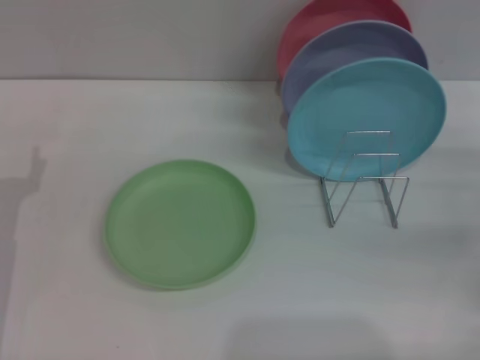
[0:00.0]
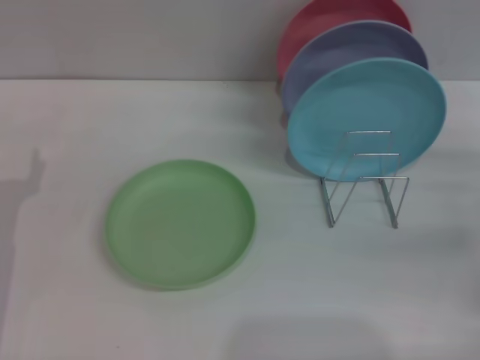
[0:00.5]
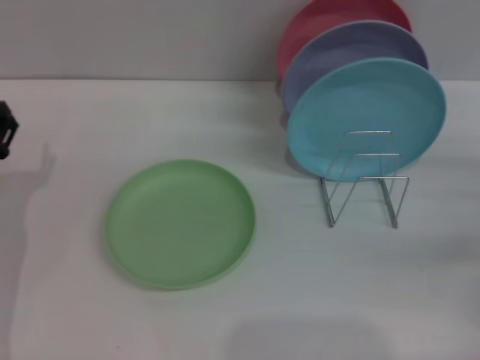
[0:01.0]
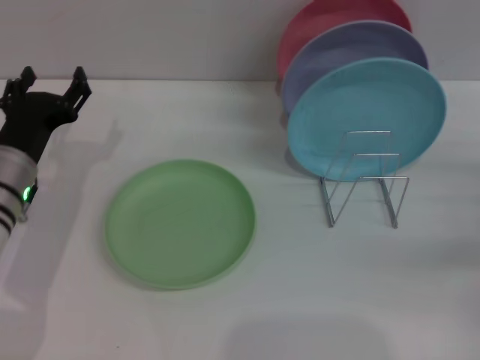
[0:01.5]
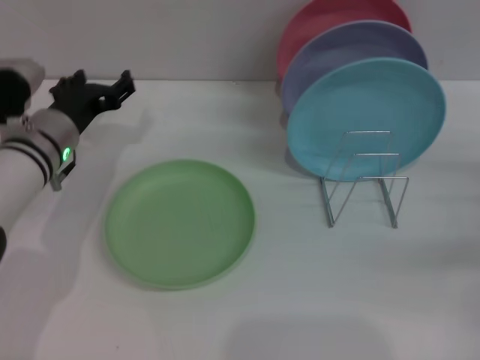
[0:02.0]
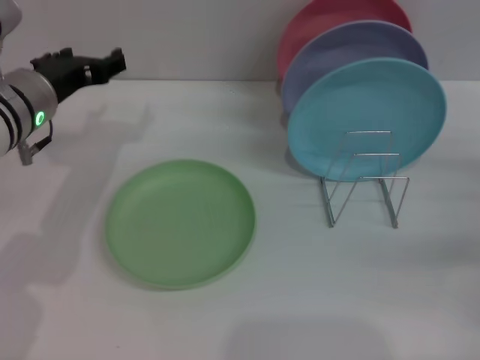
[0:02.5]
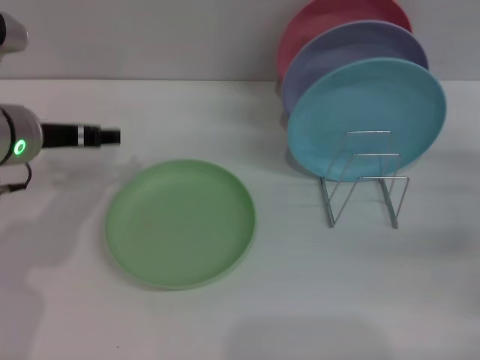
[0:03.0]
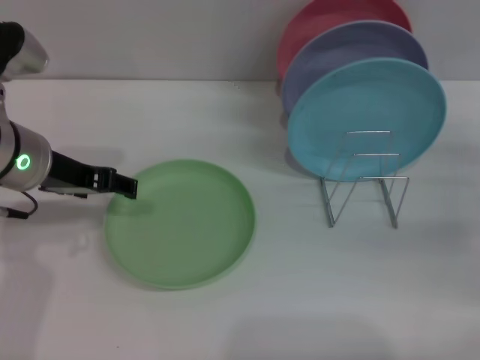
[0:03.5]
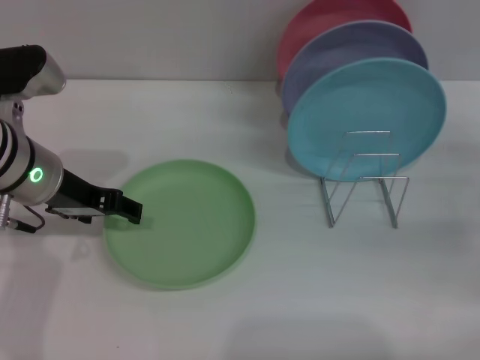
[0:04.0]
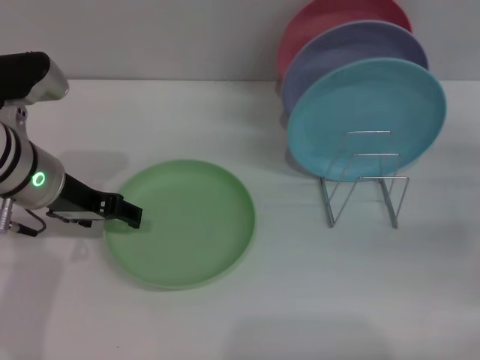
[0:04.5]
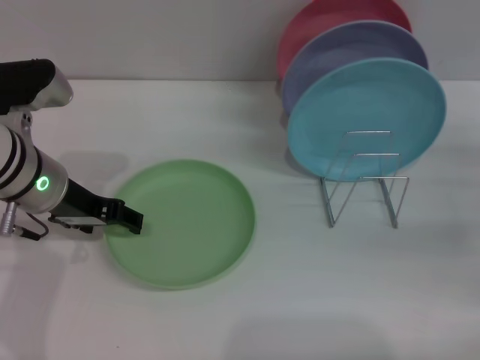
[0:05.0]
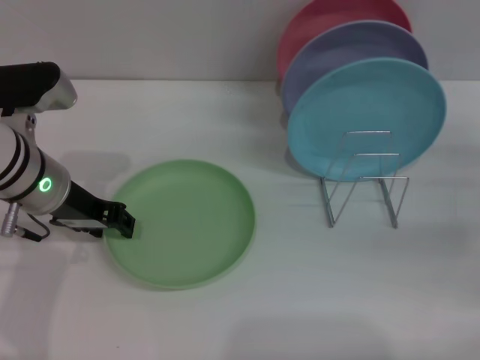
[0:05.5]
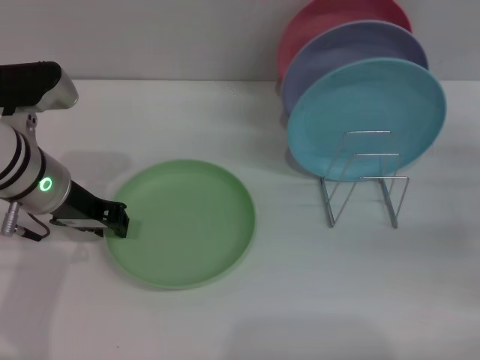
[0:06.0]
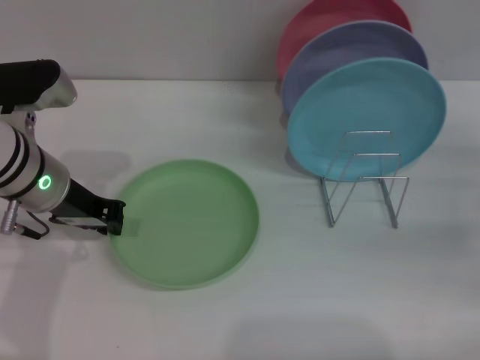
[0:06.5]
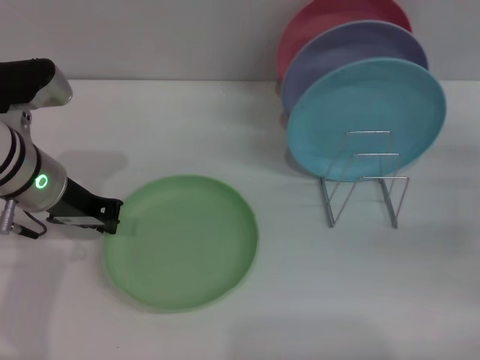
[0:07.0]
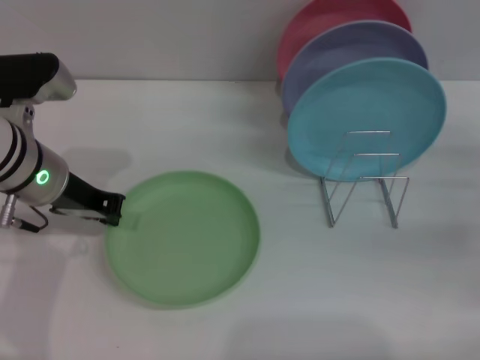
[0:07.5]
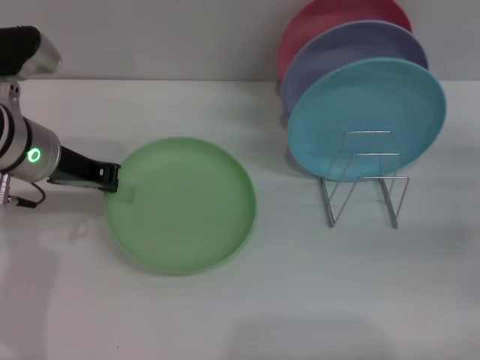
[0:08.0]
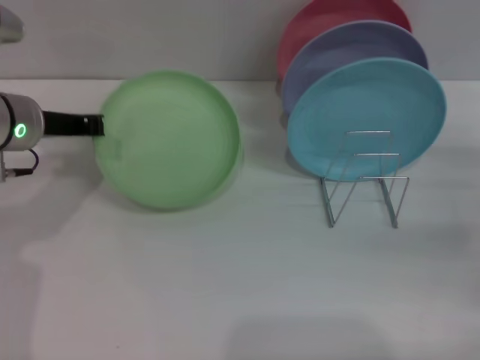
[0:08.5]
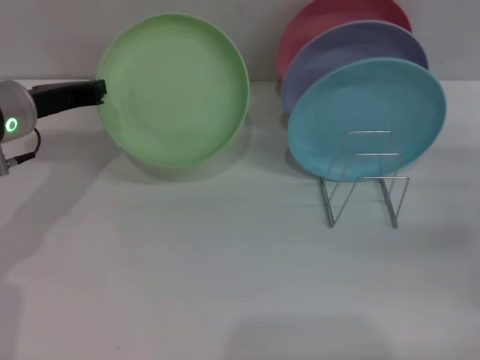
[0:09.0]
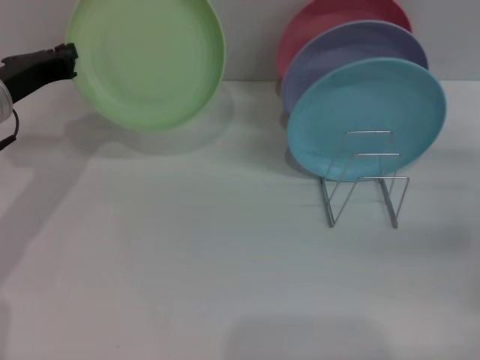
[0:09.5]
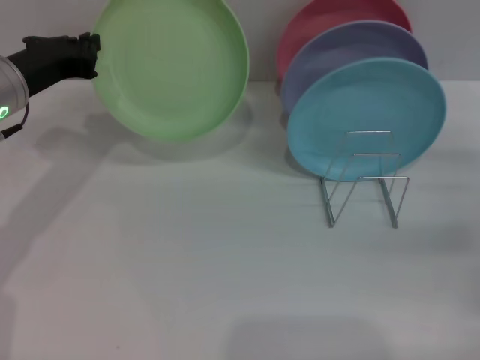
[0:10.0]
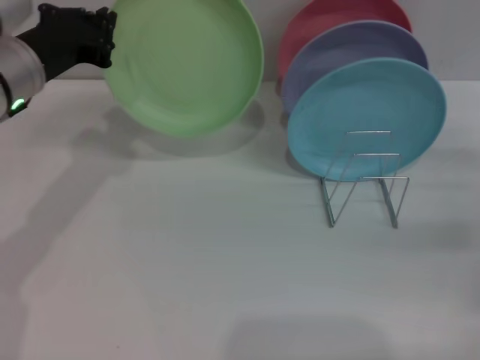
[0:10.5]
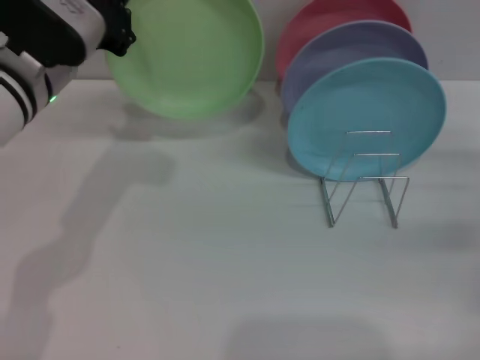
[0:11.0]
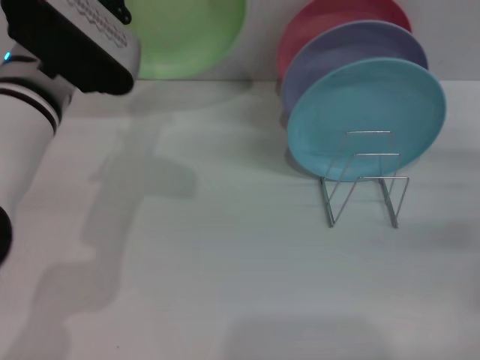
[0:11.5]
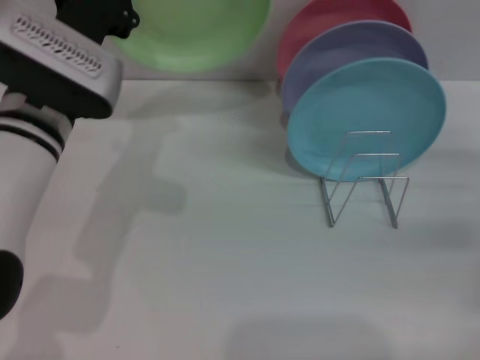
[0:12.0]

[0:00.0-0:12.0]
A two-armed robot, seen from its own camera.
Task of the whole recording: Grip the plate with one hand, pass it to the other, then set it on the shelf.
Step, 0:00.0 to 0:07.5: Pick up the plate with the left gripper.
0:00.0 to 0:02.0: The left gripper moves forward and to the right, some 15 cm.
0:02.0 to 0:04.0: The left gripper heads upward, covering roughly 10 cm.
0:04.0 to 0:06.0: The left gripper closes its fingers.
0:06.0 to 0:08.0: The left gripper closes up.
0:10.0 to 0:12.0: The left gripper goes about 10 cm to the right.

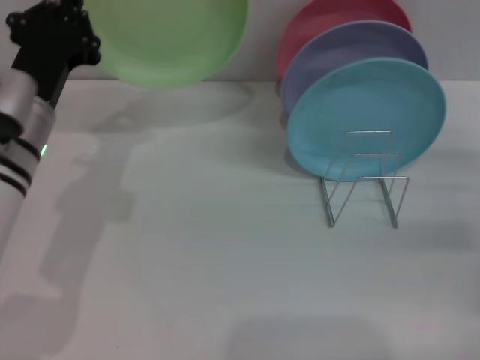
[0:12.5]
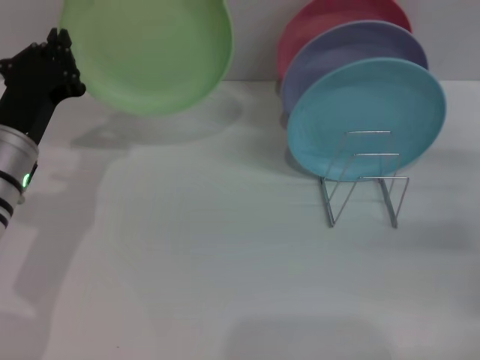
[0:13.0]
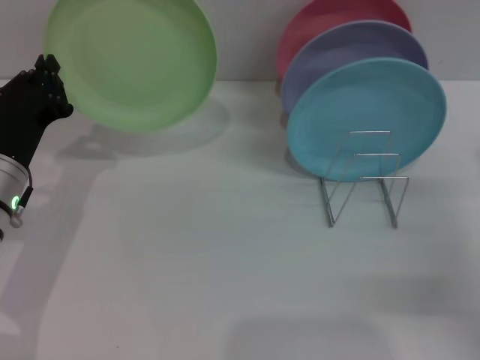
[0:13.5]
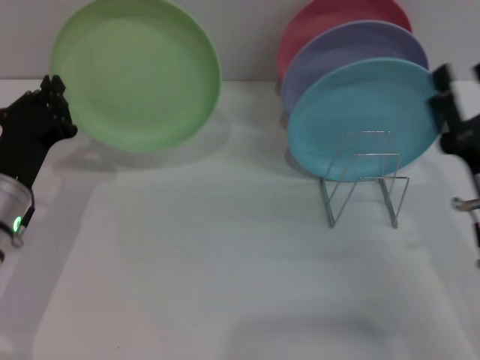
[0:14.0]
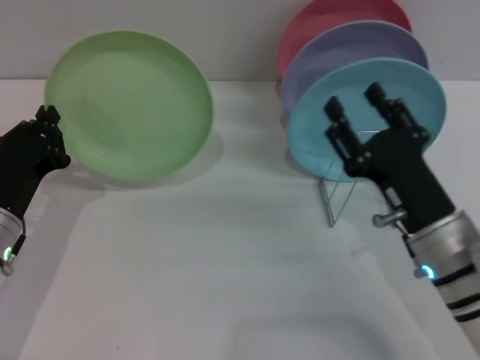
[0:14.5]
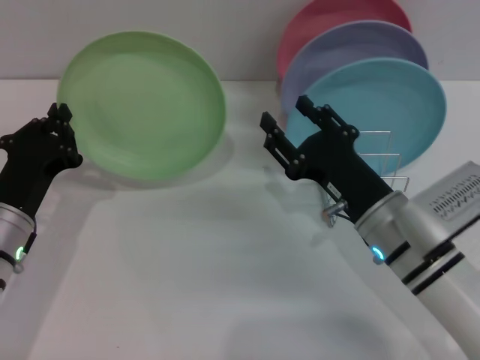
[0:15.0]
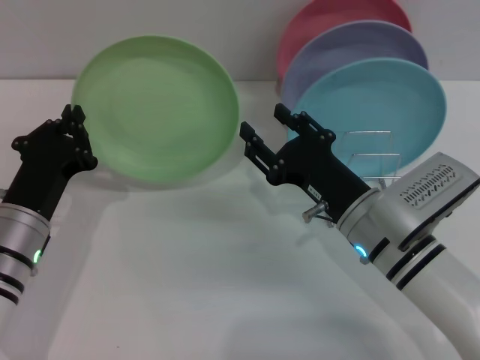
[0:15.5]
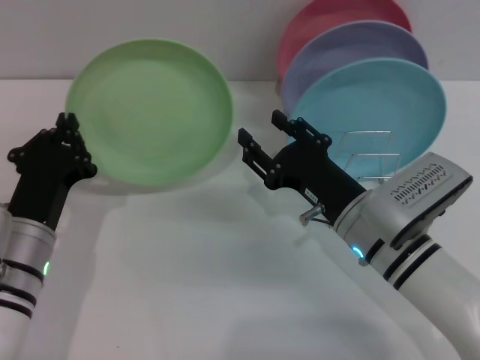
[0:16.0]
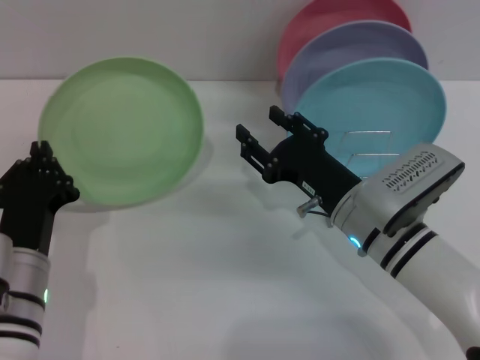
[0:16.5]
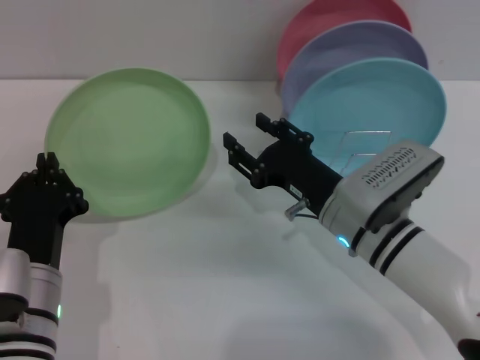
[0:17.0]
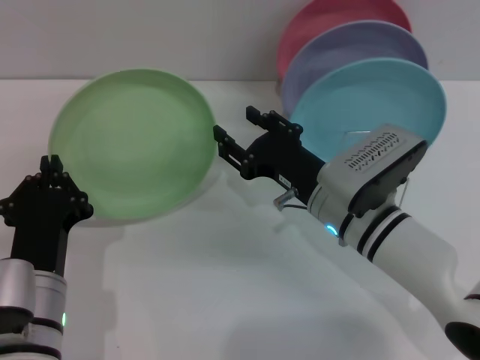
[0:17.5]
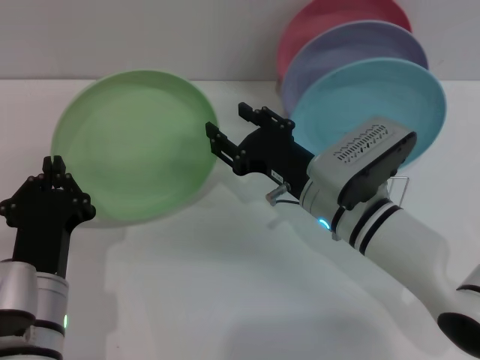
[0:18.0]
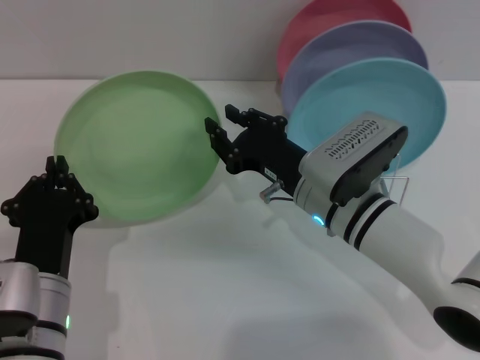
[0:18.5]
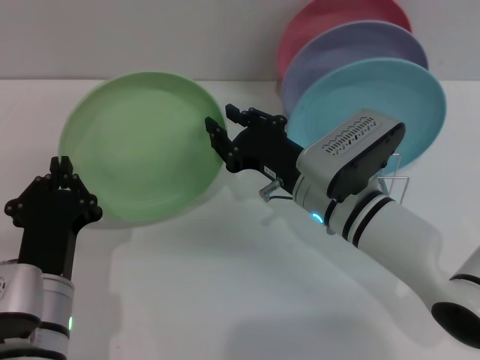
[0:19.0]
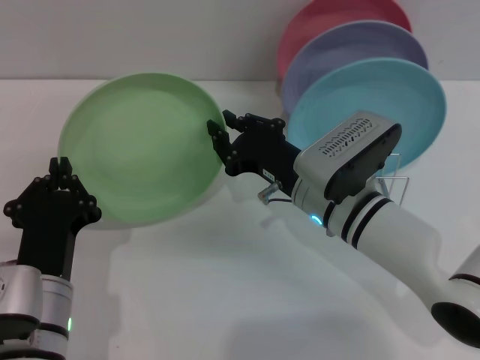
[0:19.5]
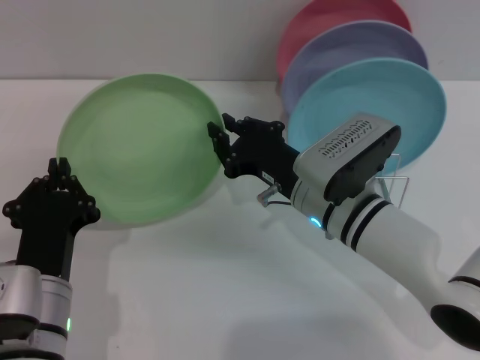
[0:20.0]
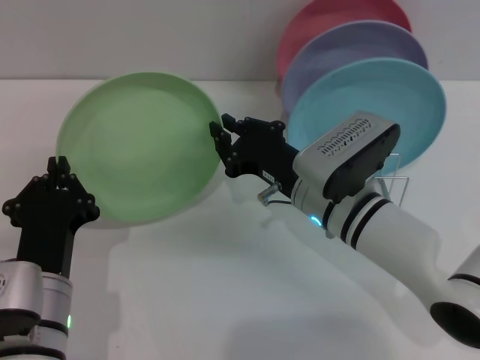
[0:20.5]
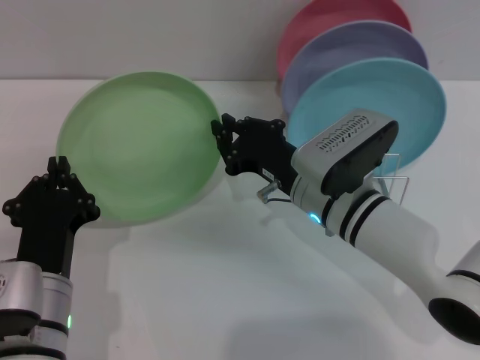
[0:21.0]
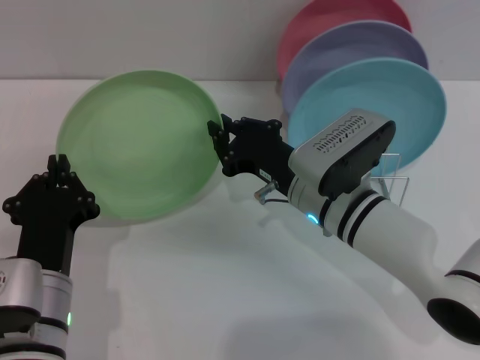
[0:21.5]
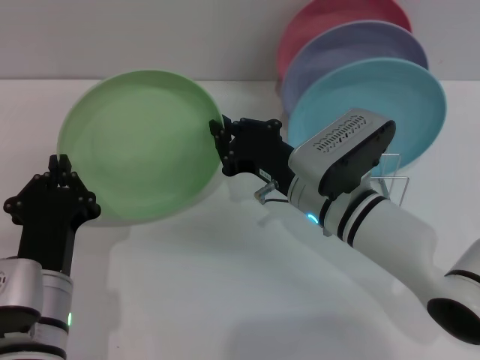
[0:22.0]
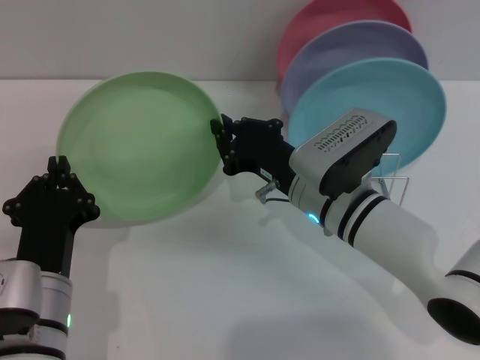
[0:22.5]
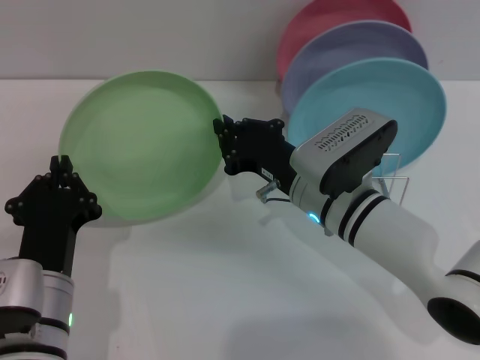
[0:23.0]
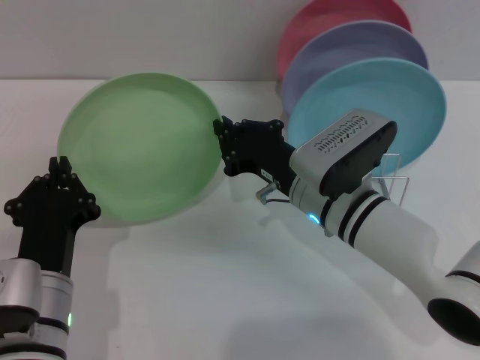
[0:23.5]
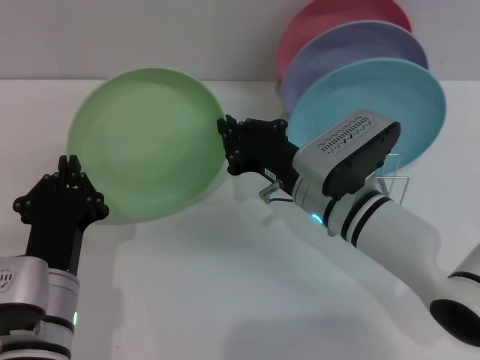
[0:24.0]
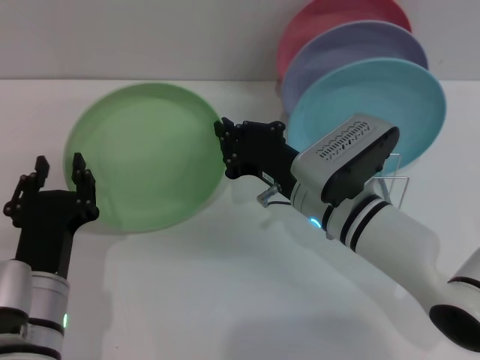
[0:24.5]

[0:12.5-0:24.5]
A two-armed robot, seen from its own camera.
Task of the whole recording: Grip the plate with one hand, pass it to the other, then set it on the shelf.
0:12.5 to 0:14.5: The right gripper heads to the left, covering roughly 15 cm. The left gripper heads downward, backward and to the left, covering roughly 10 cm.
0:14.5 to 0:16.5: The right gripper heads forward, covering some 5 cm, while the left gripper is displaced to the right and backward by approximately 5 cm.
0:18.5 to 0:20.5: The right gripper closes up.
0:20.5 to 0:24.5: Both grippers stay put.

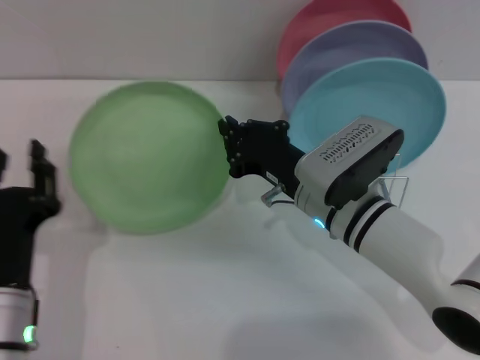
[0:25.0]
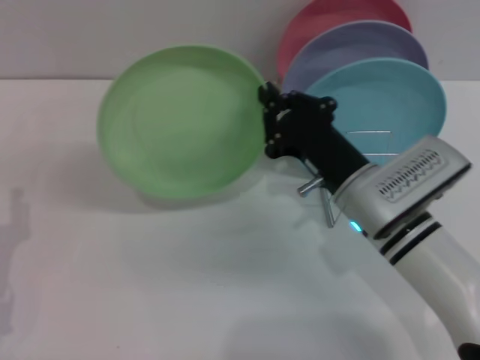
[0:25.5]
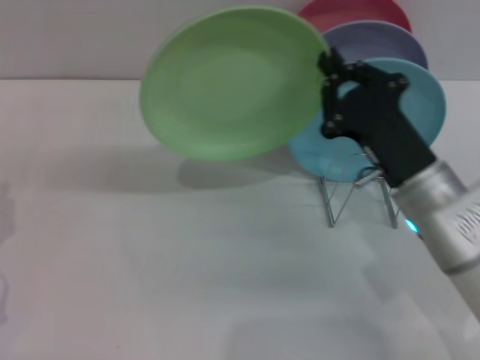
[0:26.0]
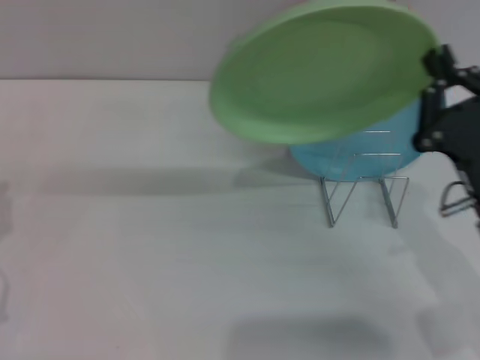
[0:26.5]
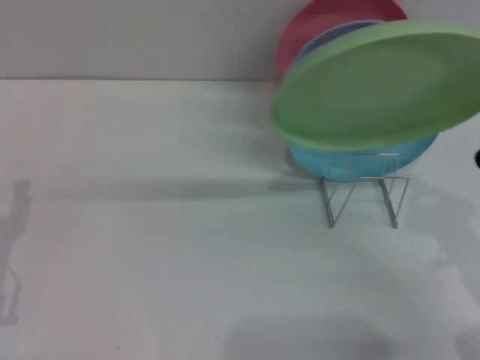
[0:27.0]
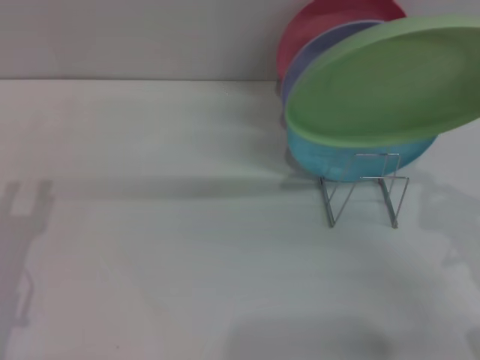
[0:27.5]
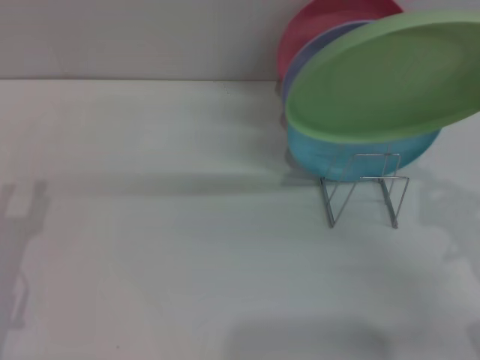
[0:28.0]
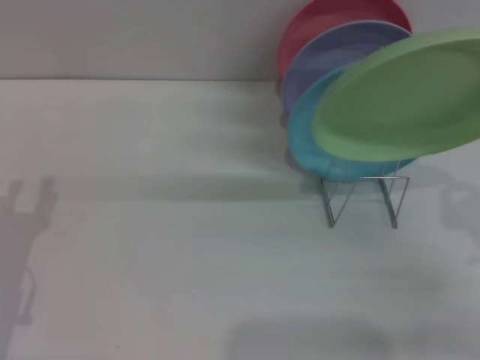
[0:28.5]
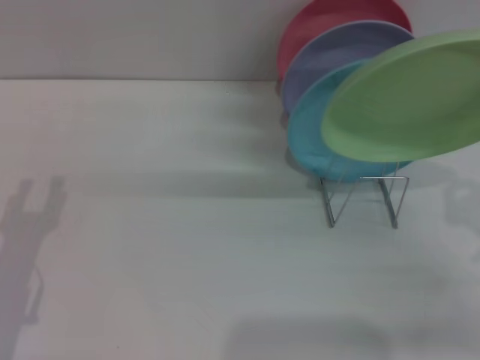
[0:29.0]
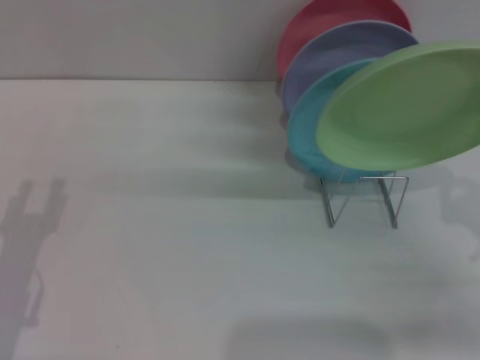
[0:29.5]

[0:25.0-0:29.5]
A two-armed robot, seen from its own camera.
Task of the whole recording: Grip the plate with one hand, pass it to the other, then set it on the shelf.
0:25.0 to 0:27.0: The right gripper moves to the right and backward, roughly 20 cm. Meanwhile the left gripper is displaced to the left by about 10 cm.
0:27.0 to 0:29.5: The right gripper moves about 5 cm.
